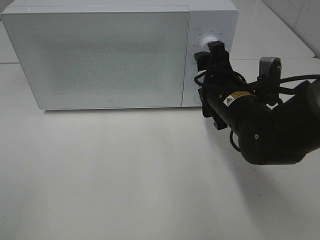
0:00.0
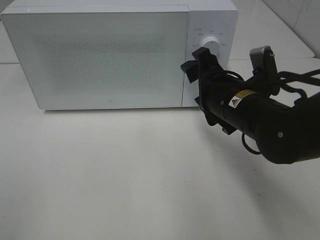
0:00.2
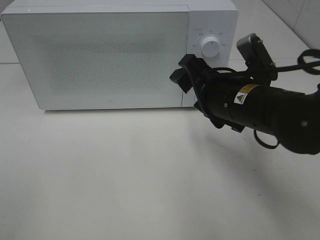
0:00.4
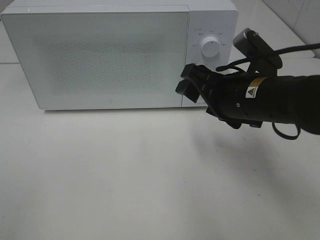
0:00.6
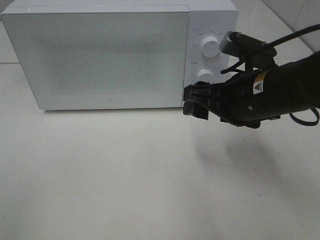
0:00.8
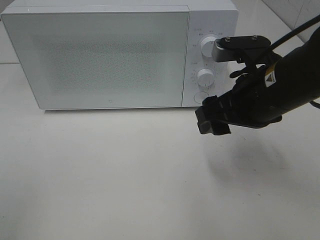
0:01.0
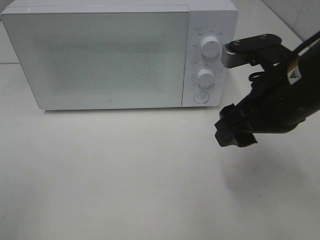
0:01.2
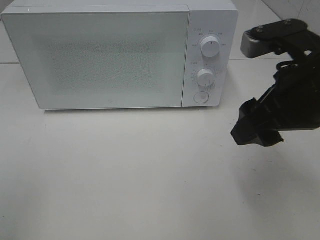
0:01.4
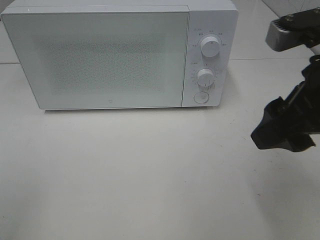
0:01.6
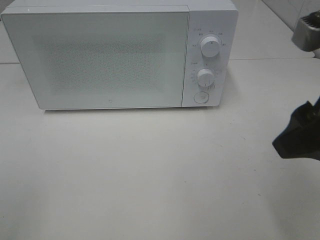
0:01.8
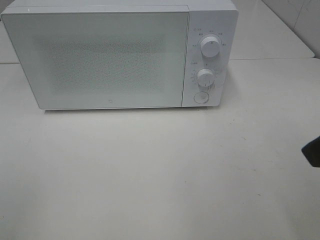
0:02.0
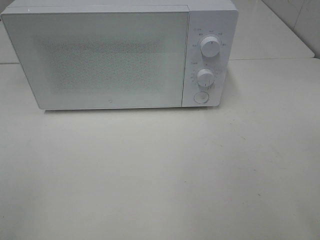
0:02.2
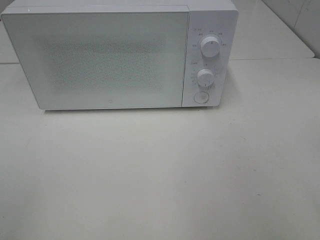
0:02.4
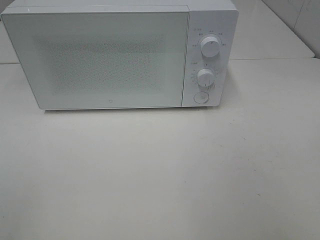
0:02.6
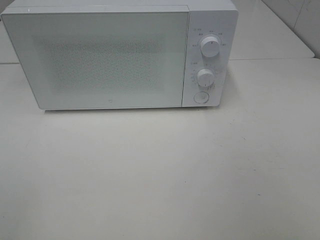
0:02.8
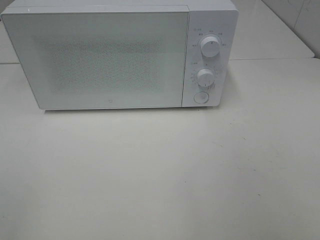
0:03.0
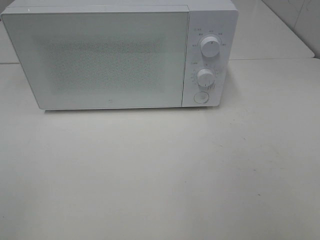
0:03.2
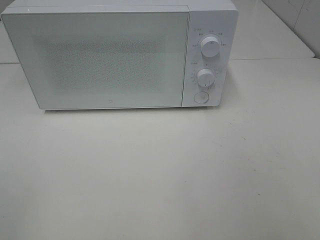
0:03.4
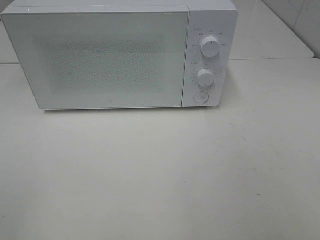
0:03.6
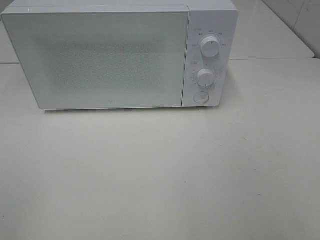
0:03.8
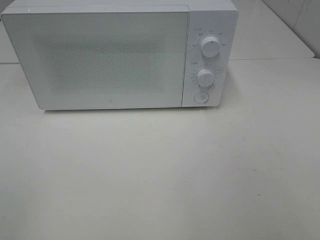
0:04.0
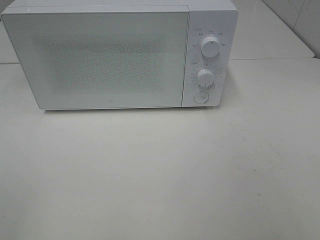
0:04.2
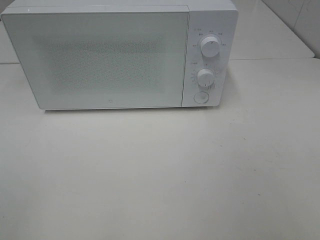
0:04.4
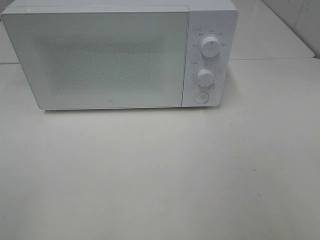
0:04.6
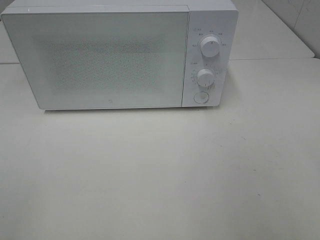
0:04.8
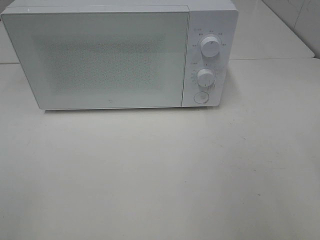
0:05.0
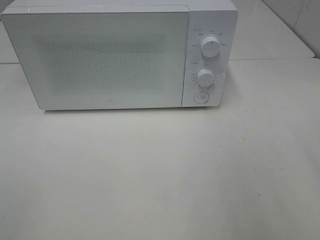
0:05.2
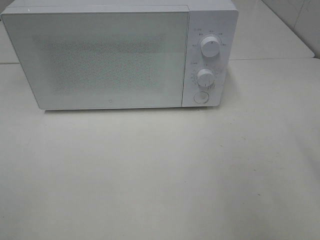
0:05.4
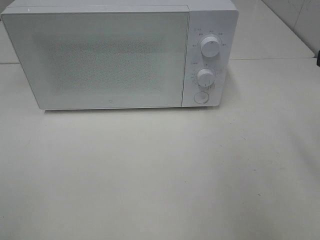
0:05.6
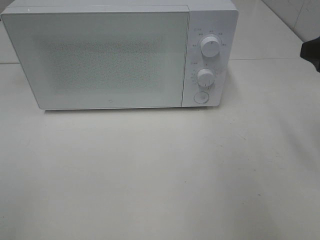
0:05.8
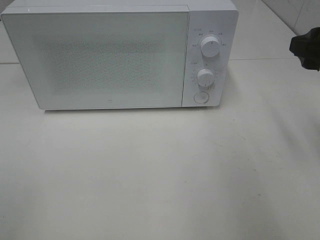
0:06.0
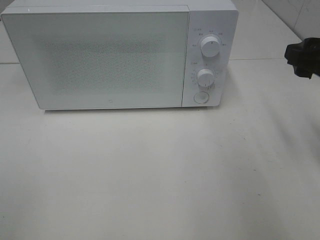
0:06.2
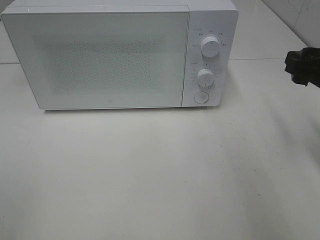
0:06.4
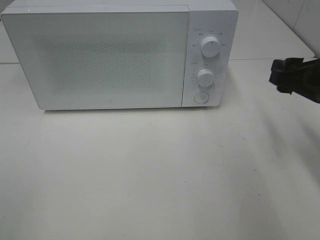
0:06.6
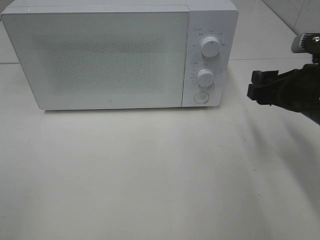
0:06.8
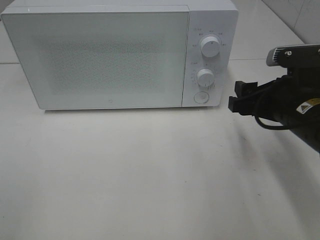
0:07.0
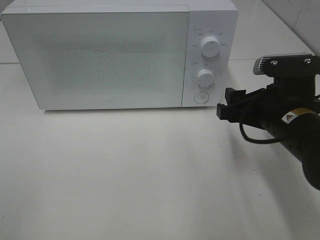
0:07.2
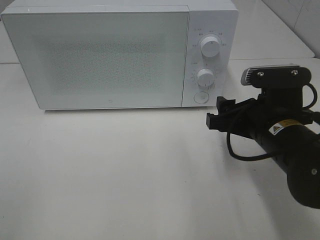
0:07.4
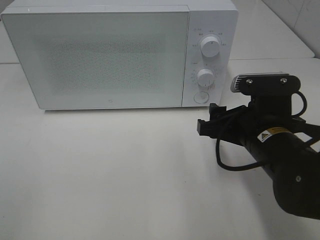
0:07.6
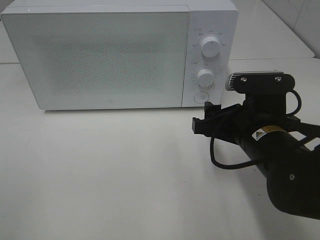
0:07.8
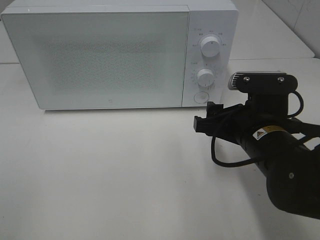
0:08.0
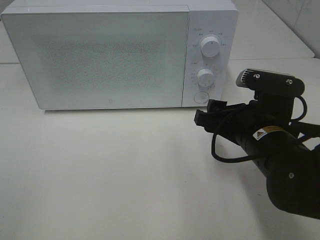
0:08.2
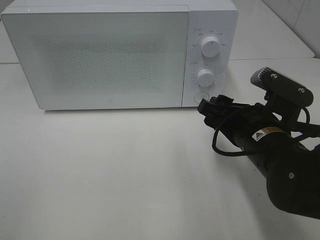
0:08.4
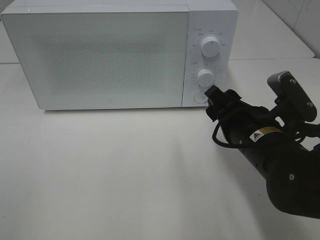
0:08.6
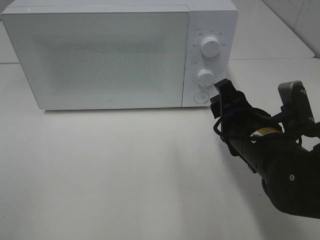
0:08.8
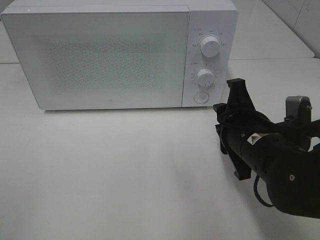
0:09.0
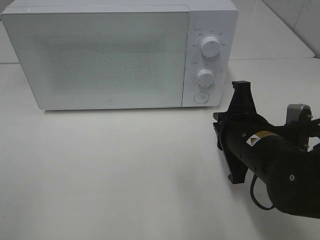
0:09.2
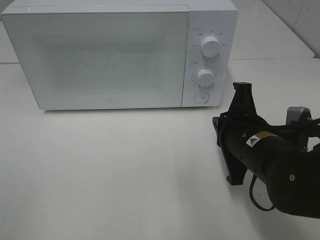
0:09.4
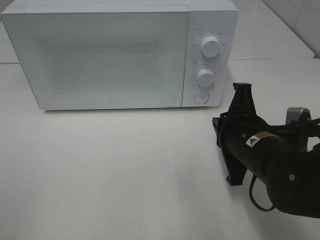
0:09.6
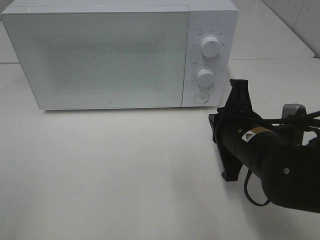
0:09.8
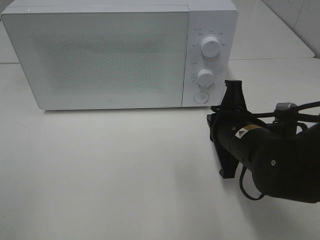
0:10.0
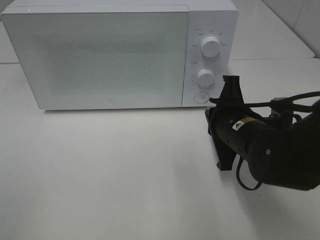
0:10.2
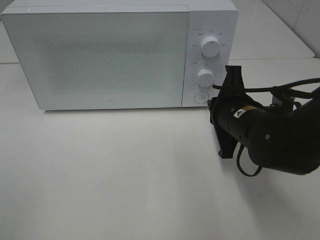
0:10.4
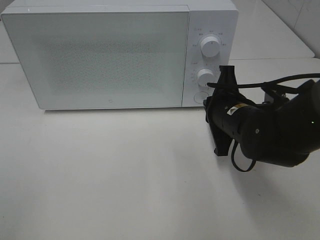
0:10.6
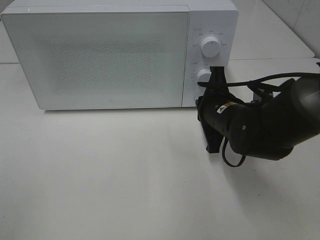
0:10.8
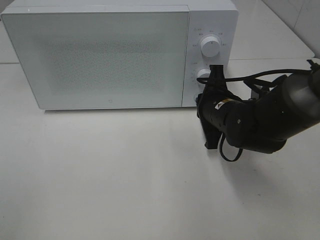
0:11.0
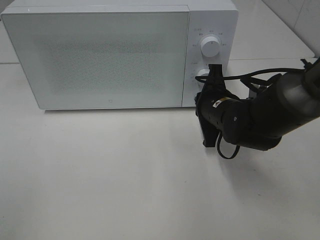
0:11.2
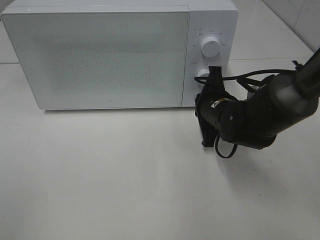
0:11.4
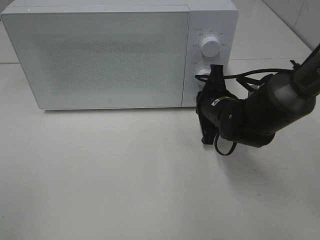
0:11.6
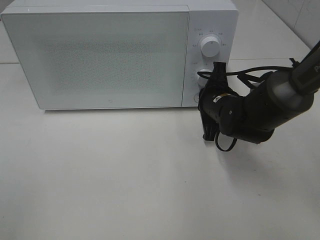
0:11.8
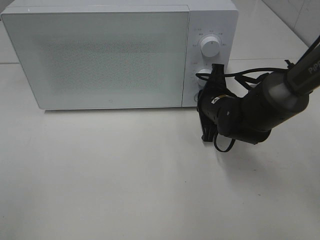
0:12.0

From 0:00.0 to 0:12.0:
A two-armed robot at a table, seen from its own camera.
Task of the whole recording: Heat Sandwich.
From 0:00.0 to 0:01.6: The right gripper moves upward, backward and to the right, approximately 20 cm.
From 0:01.6 to 0:03.0: The right gripper travels backward and to the right by roughly 20 cm.
From 0:04.4 to 0:06.0: The right gripper moves forward, approximately 20 cm.
From 0:06.0 to 0:07.6: The right gripper moves to the left and downward, about 15 cm.
From 0:07.6 to 0:09.0: The right gripper closes up.
From 0:09.0 to 0:10.4: The right gripper shifts approximately 5 cm forward, and closes.
From 0:10.4 to 0:12.0: The right gripper heads forward, covering some 10 cm.

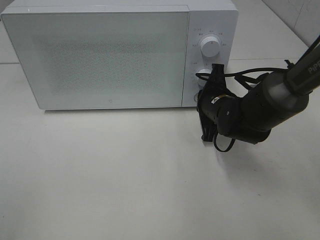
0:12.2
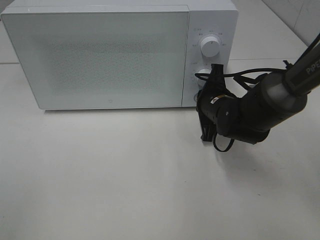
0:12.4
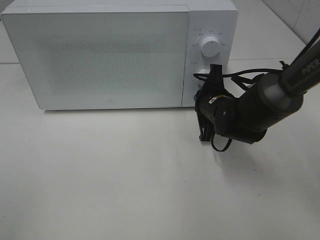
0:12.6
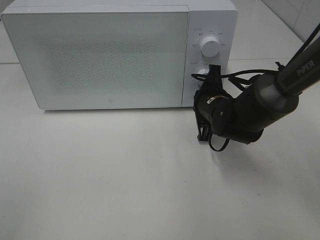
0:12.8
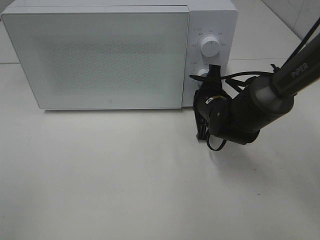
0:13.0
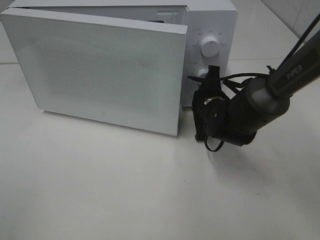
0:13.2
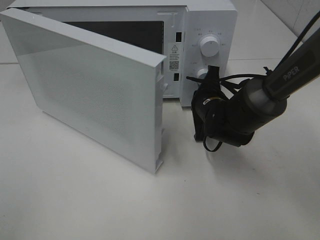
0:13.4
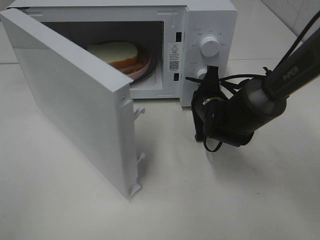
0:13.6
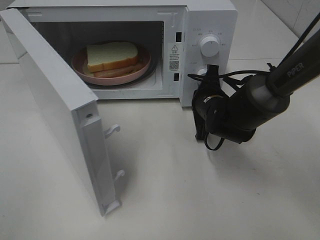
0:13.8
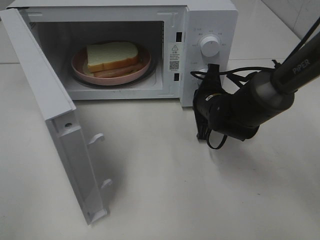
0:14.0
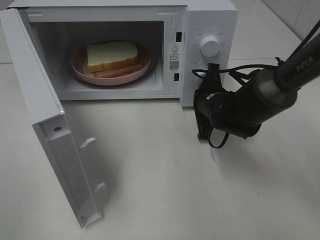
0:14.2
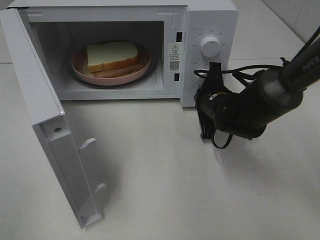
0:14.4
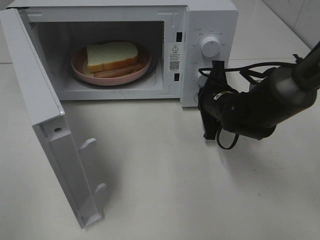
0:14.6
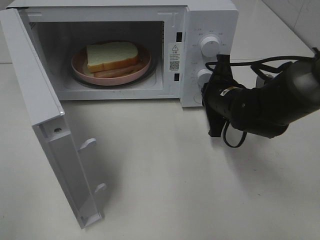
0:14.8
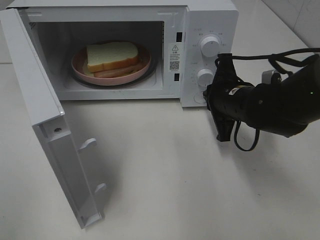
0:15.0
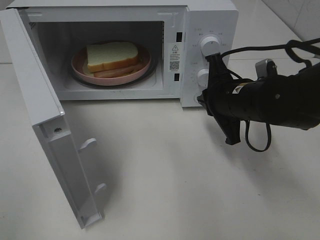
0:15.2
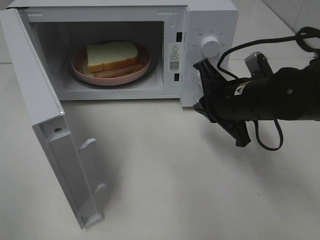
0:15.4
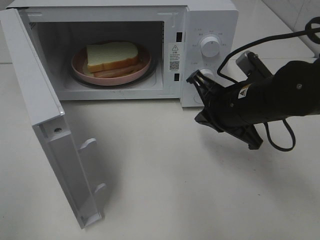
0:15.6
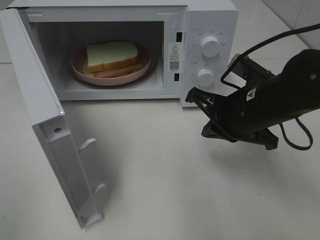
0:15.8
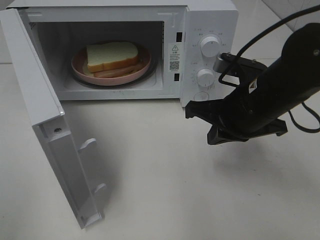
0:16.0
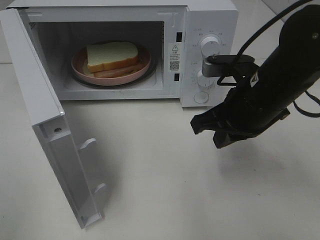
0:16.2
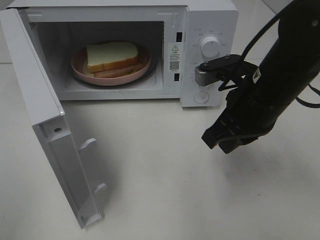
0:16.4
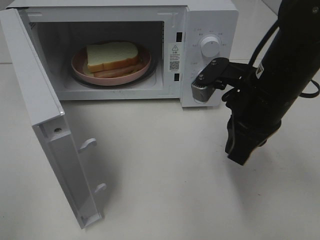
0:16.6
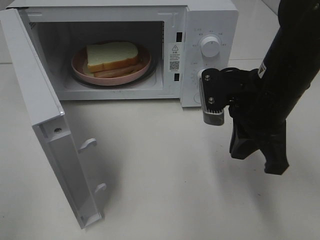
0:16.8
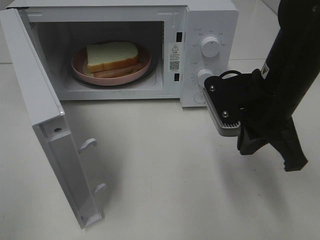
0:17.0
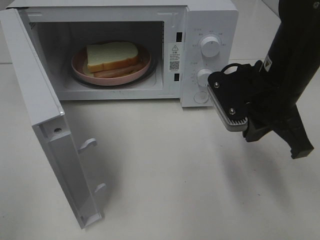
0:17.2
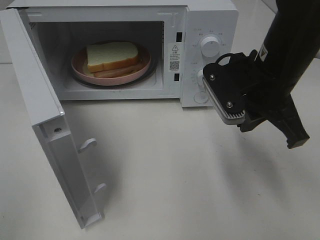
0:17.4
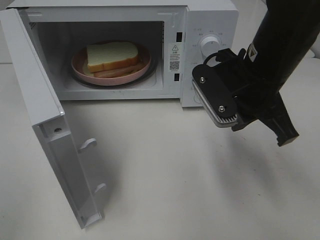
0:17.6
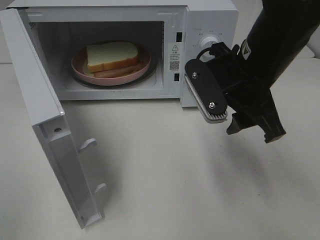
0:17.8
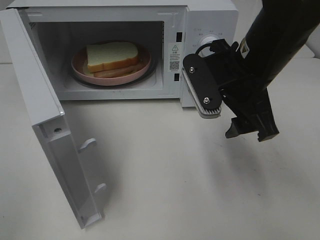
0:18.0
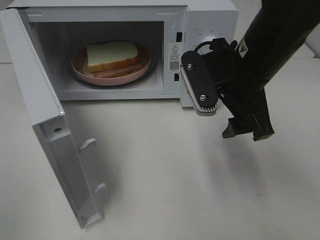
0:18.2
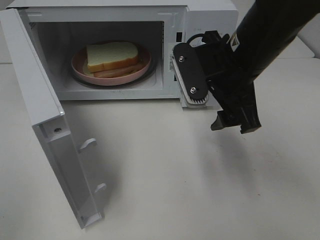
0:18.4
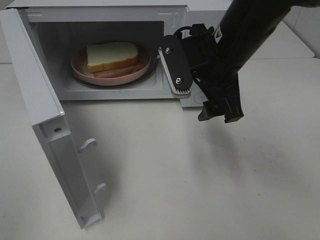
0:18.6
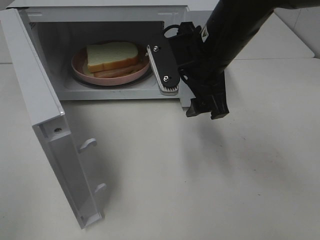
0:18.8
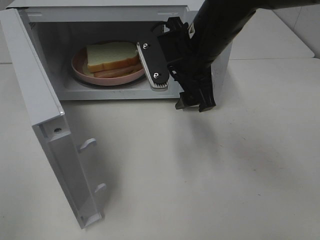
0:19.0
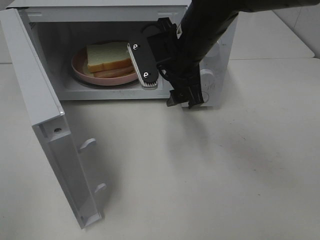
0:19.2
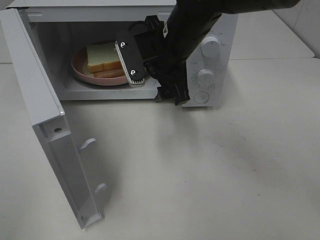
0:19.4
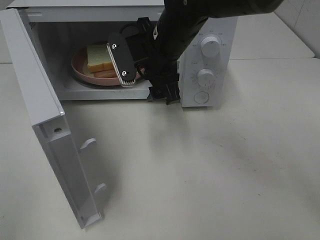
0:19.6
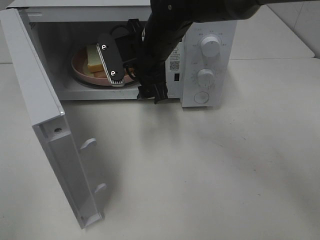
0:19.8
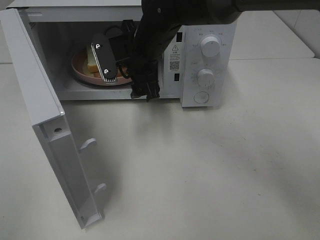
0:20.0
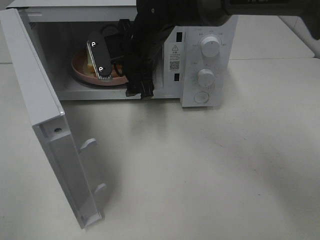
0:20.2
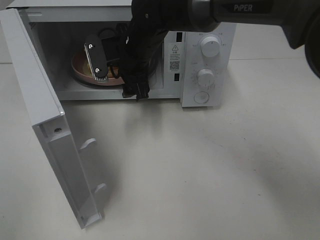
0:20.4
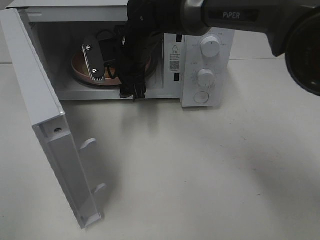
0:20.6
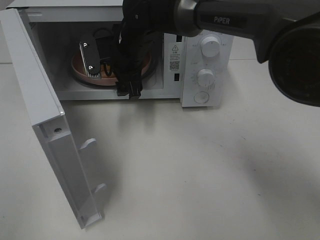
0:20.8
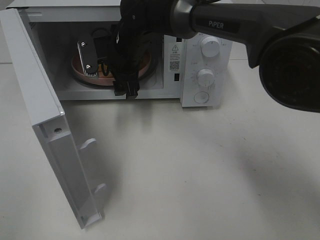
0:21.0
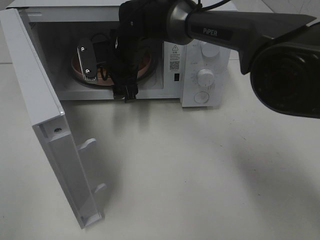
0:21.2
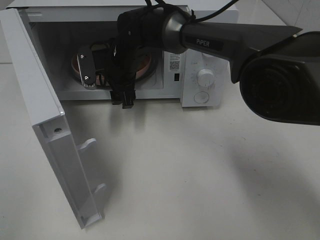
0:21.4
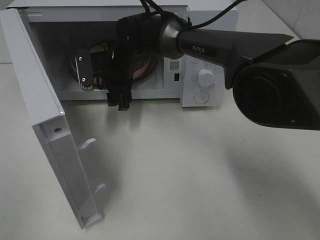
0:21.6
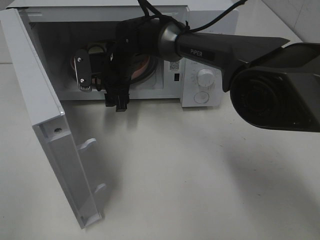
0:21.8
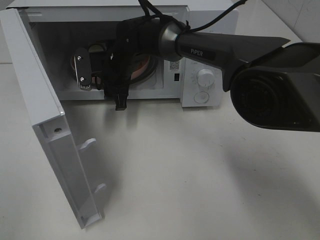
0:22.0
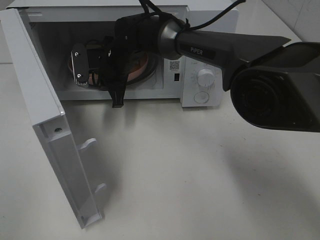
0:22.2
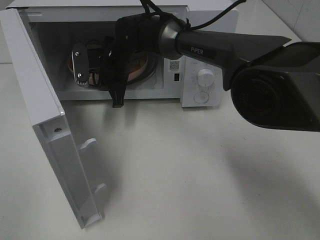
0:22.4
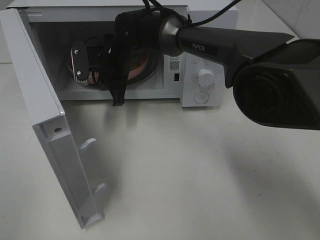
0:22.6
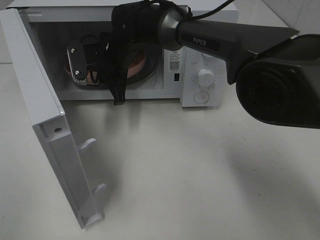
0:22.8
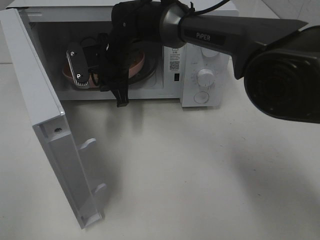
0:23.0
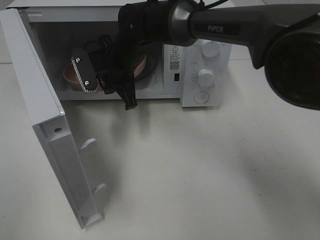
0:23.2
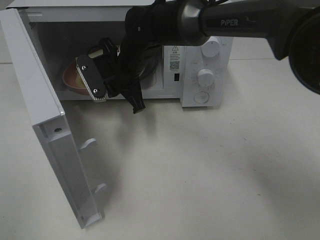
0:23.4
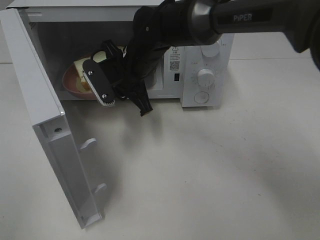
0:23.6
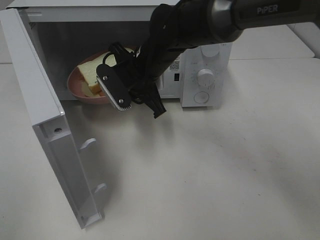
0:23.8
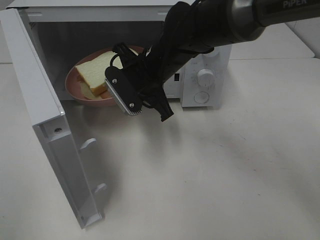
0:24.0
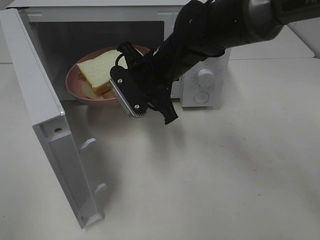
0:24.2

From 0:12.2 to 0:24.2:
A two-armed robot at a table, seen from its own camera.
Task of the whole recording: Heat Sandwich.
Step, from 0:12.2 to 0:14.6: Right hand: press the switch.
Step, from 0:14.8 to 0:22.6: Right hand: grab the plate with the sandwich.
From 0:13.8 to 0:15.2: The right gripper heads upward and backward, covering approximately 10 cm.
From 0:15.2 to 0:16.6: The right gripper moves upward, about 5 cm.
From 0:16.6 to 0:18.2: The right gripper opens up.
From 0:18.2 to 0:19.8: The right gripper moves to the left and forward, roughly 15 cm.
From 0:19.8 to 0:21.2: The right gripper shifts about 10 cm forward and to the left.
From 0:21.2 to 0:22.6: The right gripper closes up.
From 0:22.6 to 0:24.2: The right gripper moves backward and to the right, about 15 cm.
